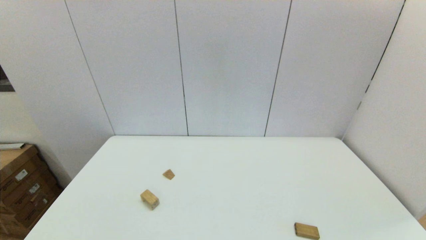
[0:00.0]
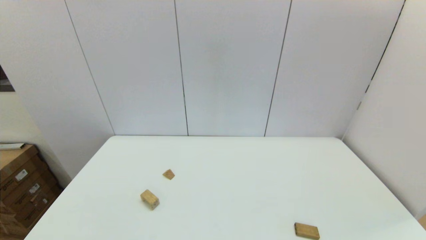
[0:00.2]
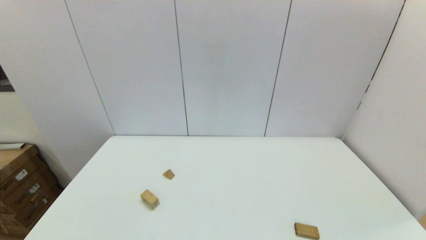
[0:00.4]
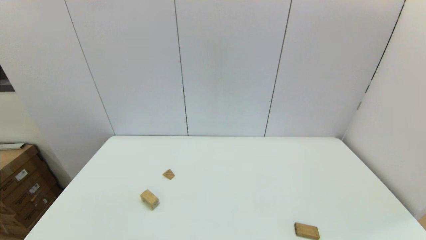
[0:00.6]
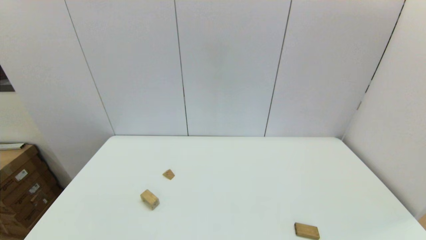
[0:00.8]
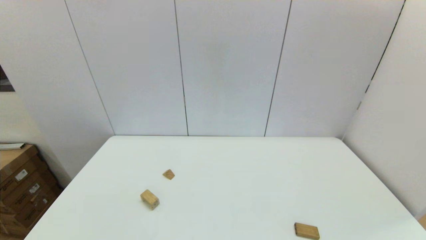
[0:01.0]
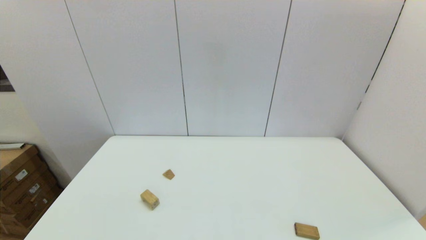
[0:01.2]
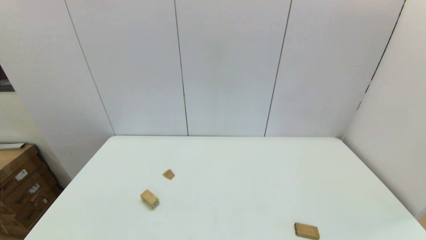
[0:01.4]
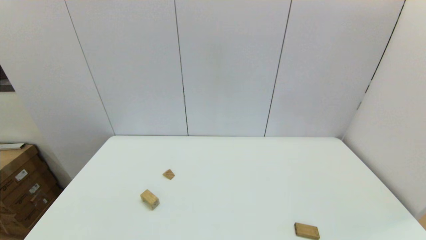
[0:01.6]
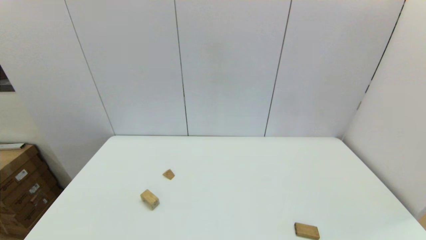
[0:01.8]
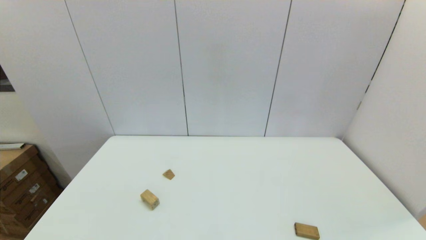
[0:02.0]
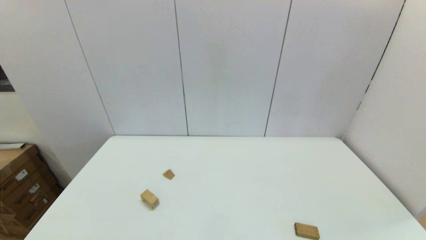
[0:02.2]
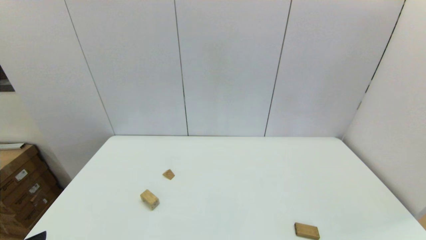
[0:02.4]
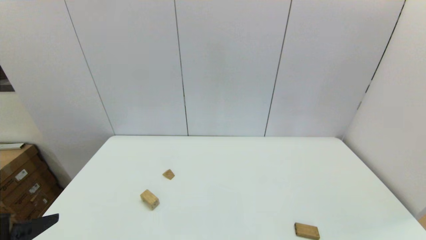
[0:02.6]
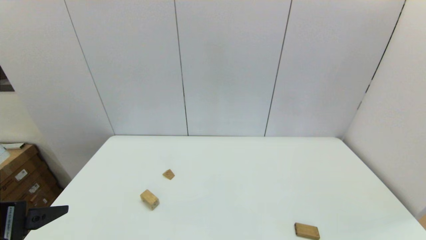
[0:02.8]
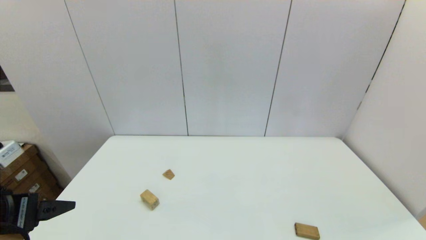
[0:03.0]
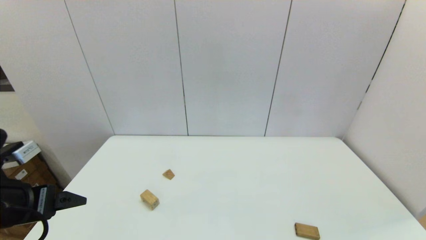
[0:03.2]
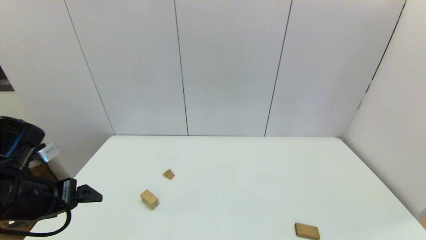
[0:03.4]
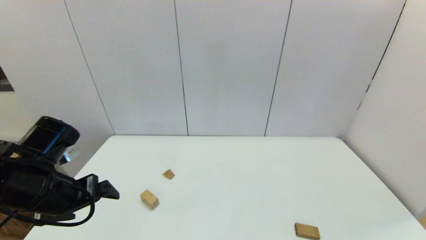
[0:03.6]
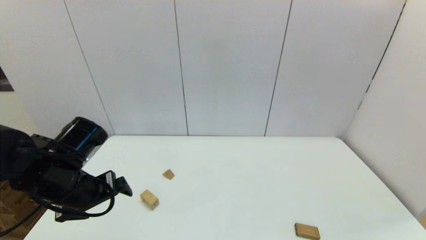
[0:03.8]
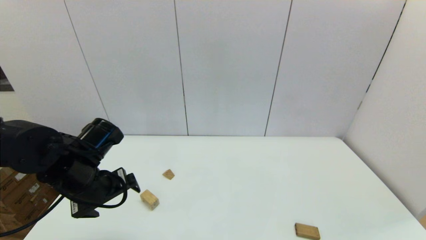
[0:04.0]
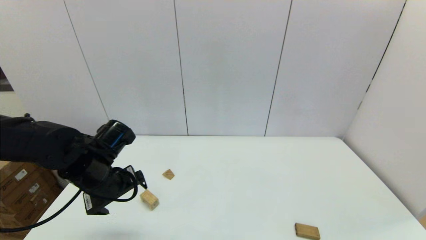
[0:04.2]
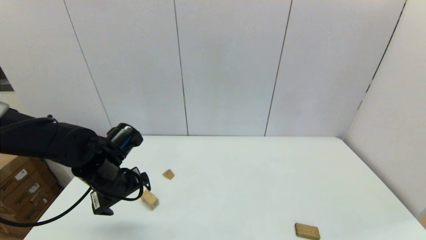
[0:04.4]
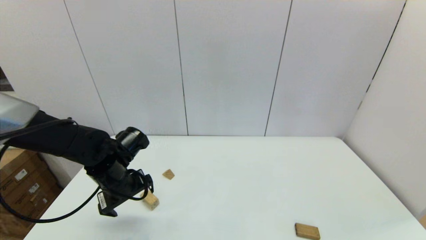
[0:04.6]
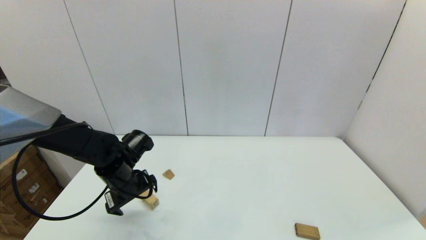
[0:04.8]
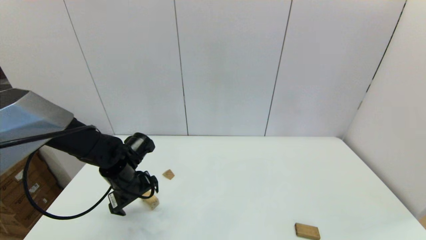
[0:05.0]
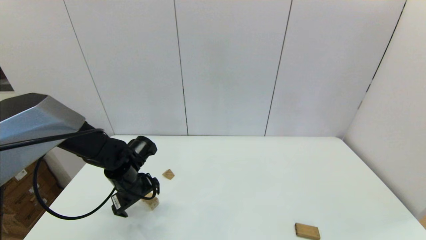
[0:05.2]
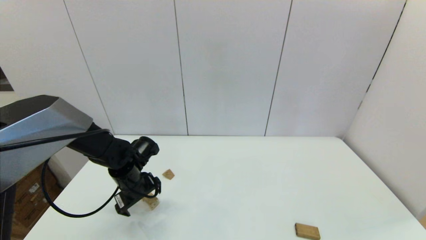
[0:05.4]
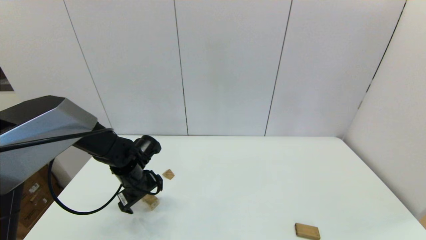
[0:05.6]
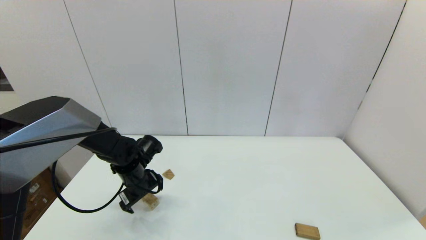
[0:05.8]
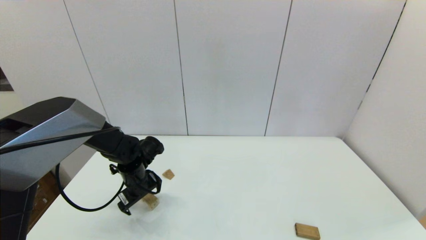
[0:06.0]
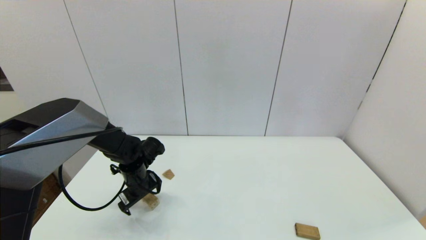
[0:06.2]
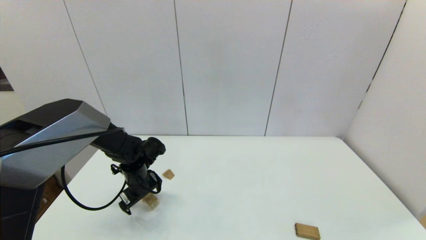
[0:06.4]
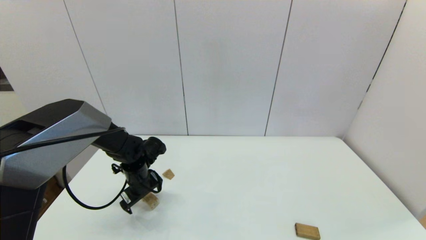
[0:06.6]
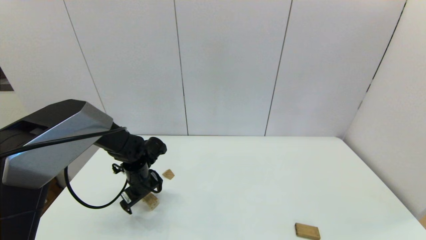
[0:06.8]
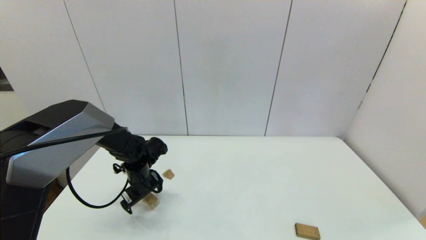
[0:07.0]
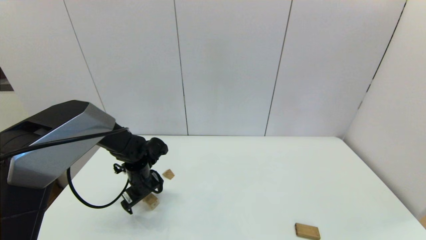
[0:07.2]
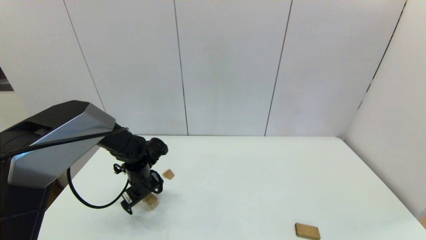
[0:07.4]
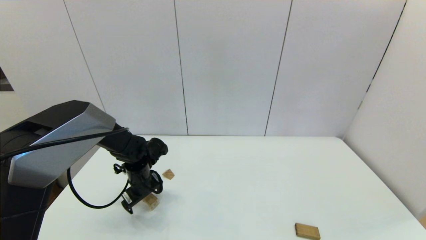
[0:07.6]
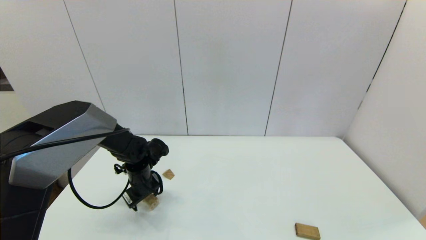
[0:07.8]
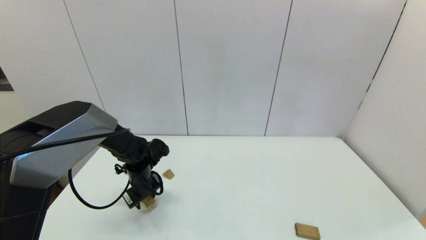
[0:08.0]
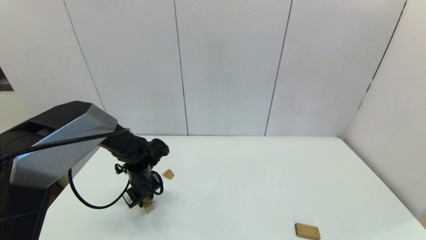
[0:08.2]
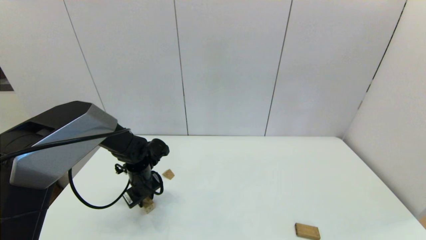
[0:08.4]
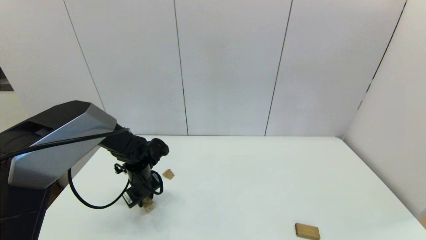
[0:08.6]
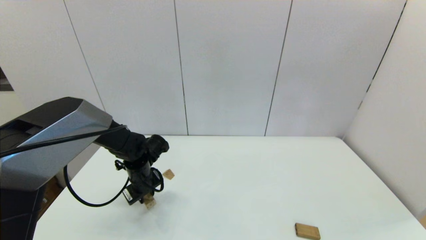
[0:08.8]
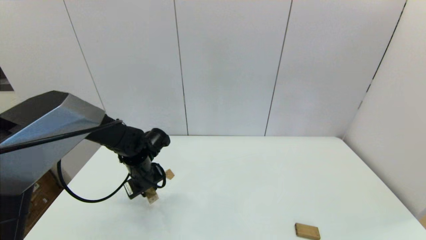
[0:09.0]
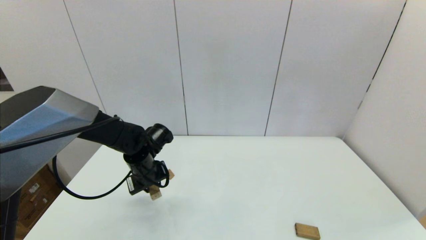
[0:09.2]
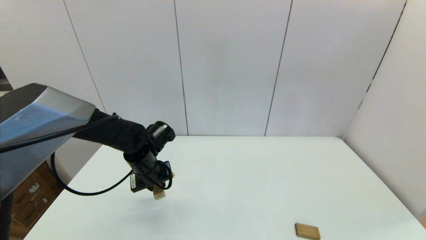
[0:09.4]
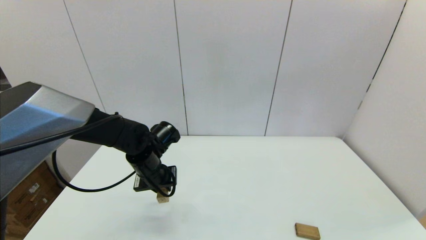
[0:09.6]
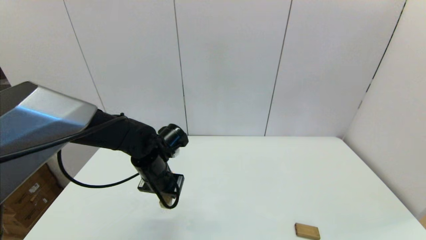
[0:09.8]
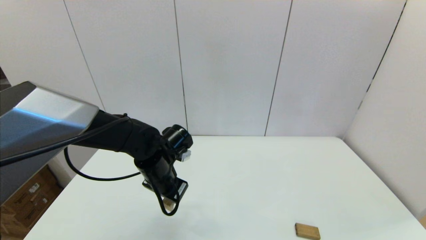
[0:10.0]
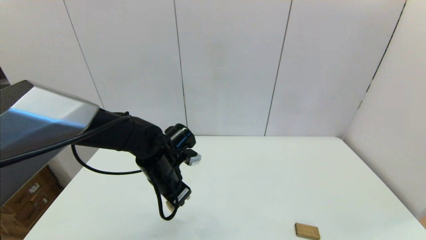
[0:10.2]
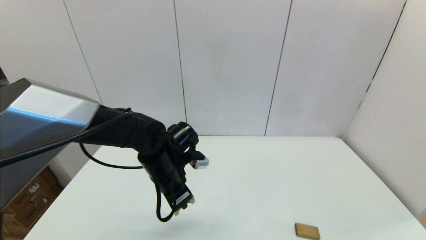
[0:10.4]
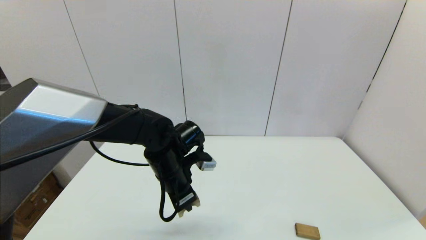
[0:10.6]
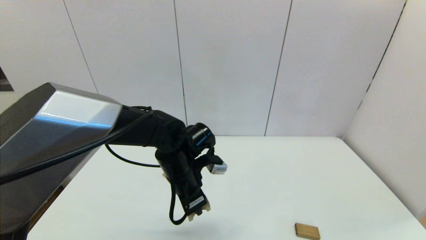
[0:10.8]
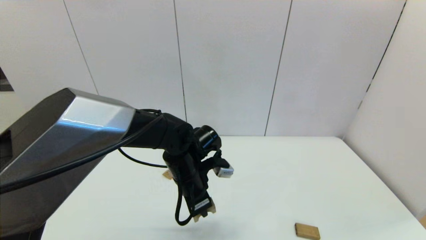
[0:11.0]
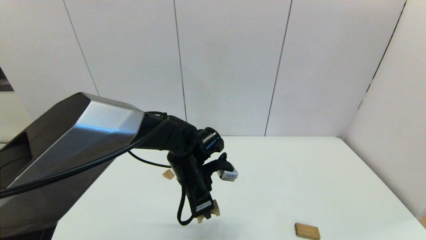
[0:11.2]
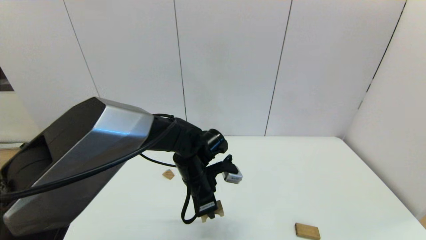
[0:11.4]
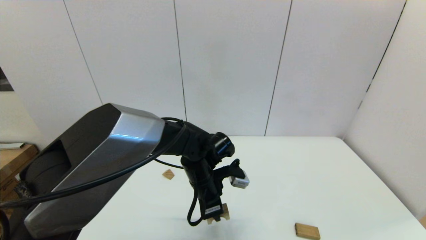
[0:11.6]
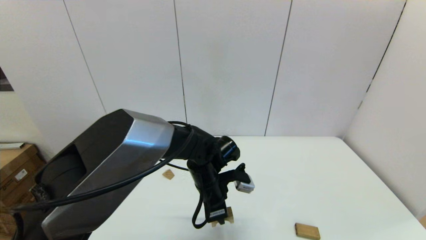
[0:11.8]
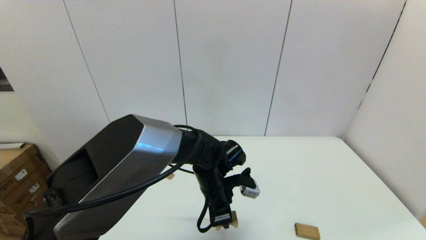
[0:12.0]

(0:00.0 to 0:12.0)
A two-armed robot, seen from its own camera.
Task of the whole recording: place the arched building blocks in the center of the table, set up the rectangular building blocks, and then set up the triangular building blocks.
Step, 0:02.4 - 0:08.8: Grasp the arch-shaped block with the left gripper.
0:01.6 - 0:03.0: The left gripper goes about 20 cm forward and upward.
0:03.0 - 0:04.4: The left gripper travels forward, downward and to the right by roughly 20 cm.
0:04.4 - 0:06.0: The left gripper goes roughly 10 cm downward and forward.
0:06.0 - 0:07.6: There are only small adjustments of the grippers.
0:07.6 - 0:09.0: The left gripper closes up.
0:09.0 - 0:10.4: The left gripper is displaced to the right, upward and backward by some 10 cm.
0:10.4 - 0:12.0: The left gripper shifts some 10 cm to the right and downward.

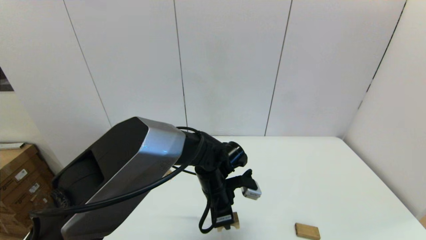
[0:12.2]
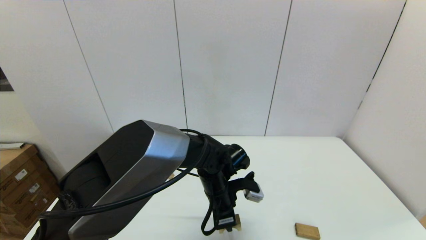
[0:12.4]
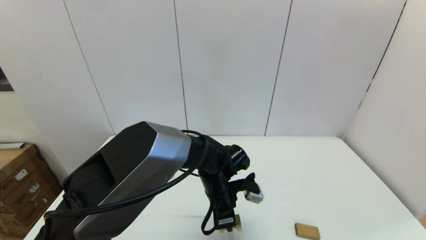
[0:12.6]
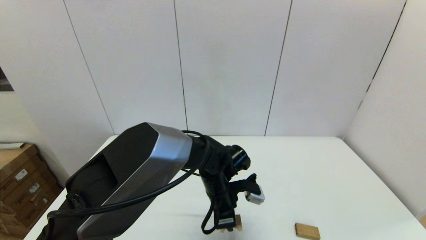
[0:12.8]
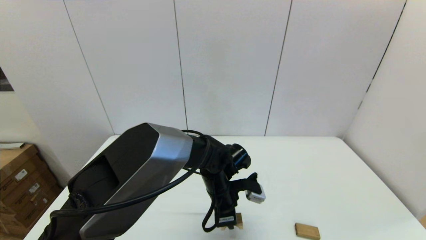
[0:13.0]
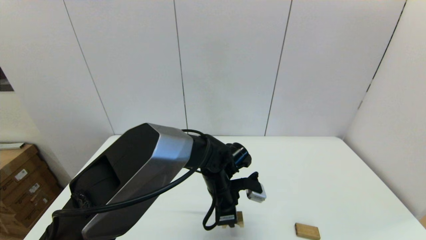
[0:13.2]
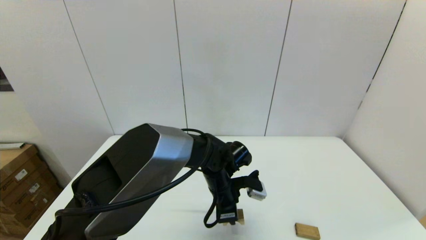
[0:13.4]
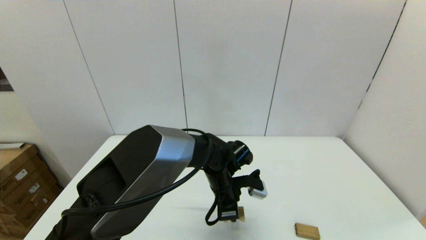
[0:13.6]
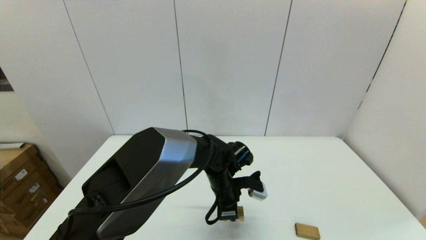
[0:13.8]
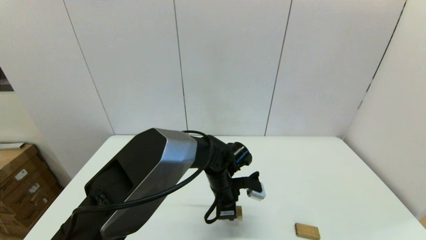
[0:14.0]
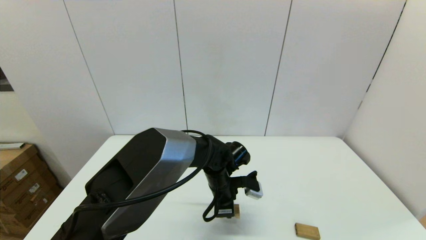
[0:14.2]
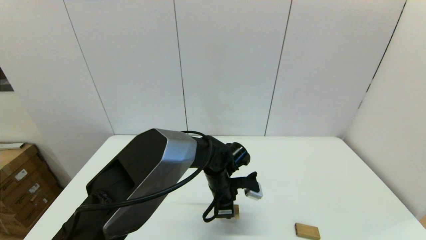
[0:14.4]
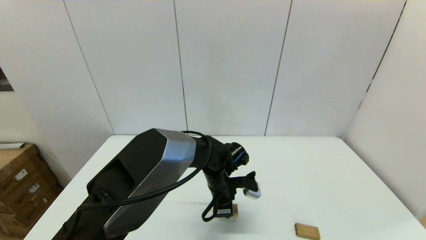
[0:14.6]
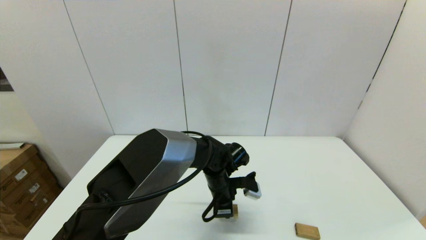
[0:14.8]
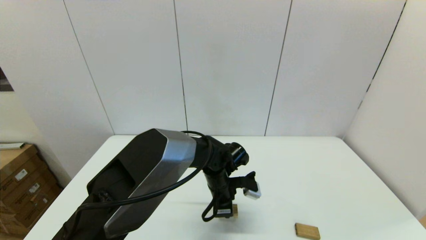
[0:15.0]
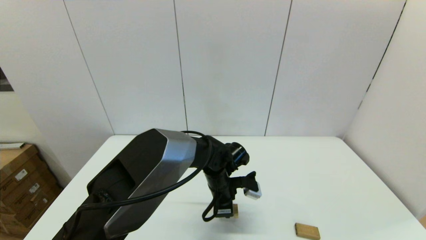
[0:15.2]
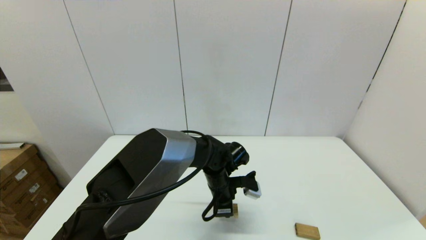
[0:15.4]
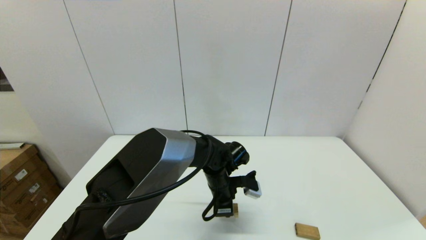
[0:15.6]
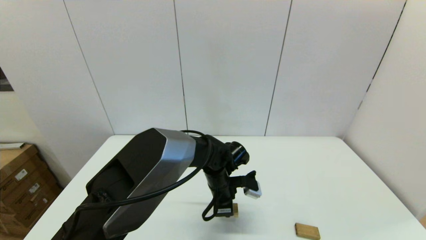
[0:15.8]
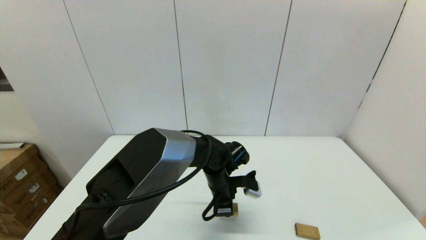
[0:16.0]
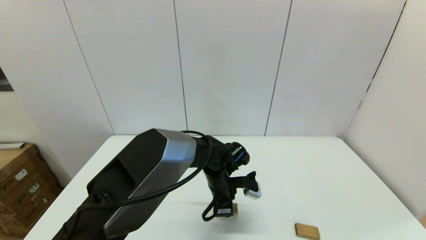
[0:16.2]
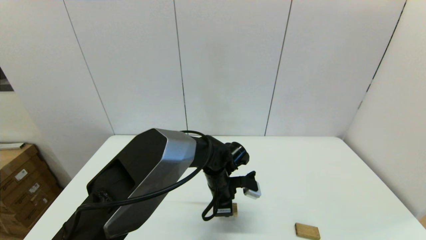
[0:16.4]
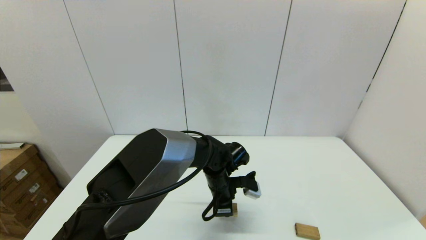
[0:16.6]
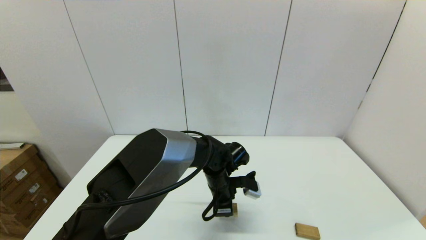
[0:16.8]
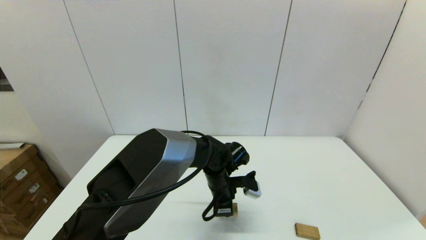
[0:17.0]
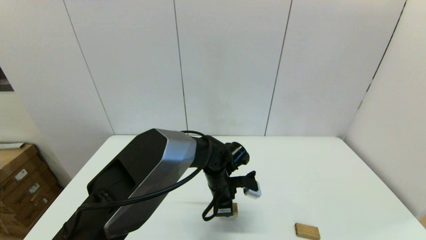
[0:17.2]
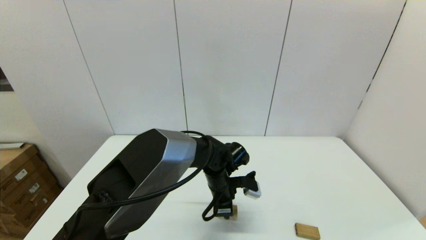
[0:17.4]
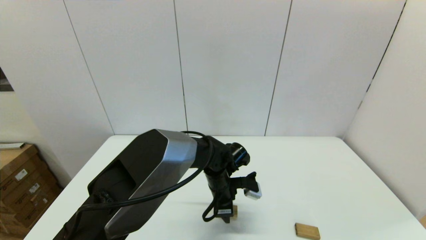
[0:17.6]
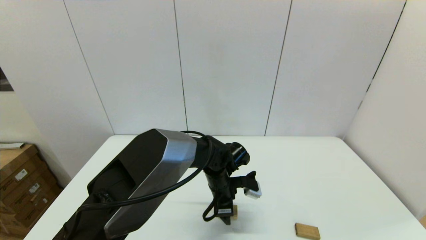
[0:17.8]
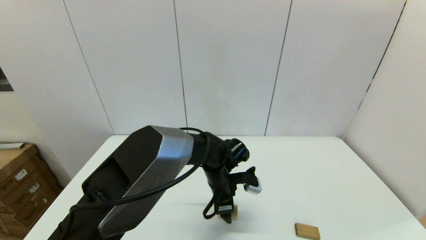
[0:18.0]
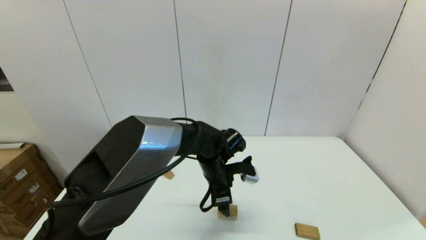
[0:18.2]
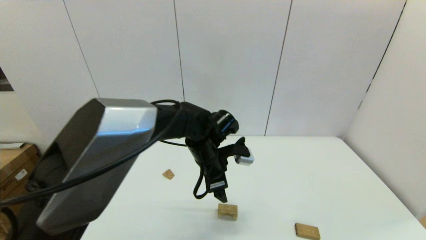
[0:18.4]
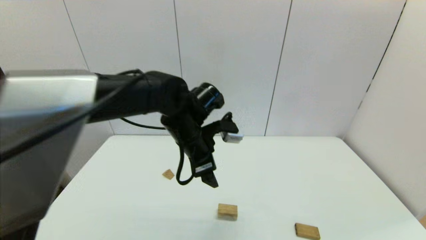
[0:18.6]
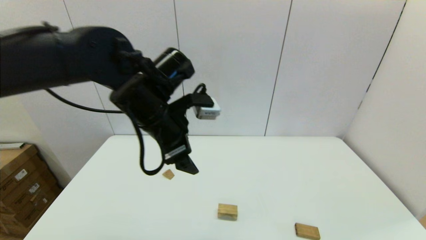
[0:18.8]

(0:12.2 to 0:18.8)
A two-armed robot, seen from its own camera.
Task of the whole recording: place the arched building blocks in the center of the table, set up the rectangular building blocks, and then set up the triangular building blocks.
Step, 0:12.2 - 0:18.2: Place the arch-shaped block in the center of view with the left gripper.
0:12.2 - 0:15.4: The grippers stay close to where they were, moving slightly.
0:15.4 - 0:17.2: The two grippers keep their place.
0:17.2 - 0:18.8: The left gripper is displaced upward and to the left by some 25 cm, and opens.
